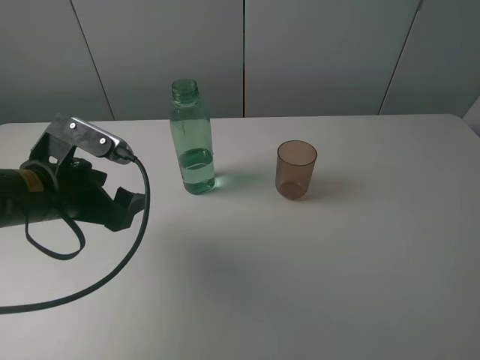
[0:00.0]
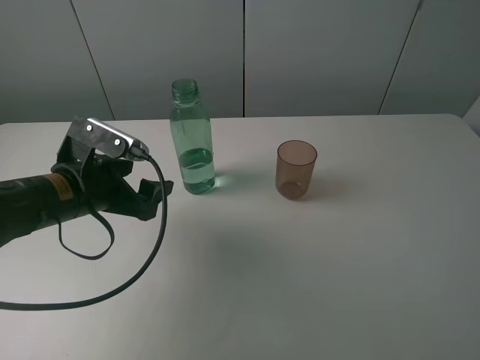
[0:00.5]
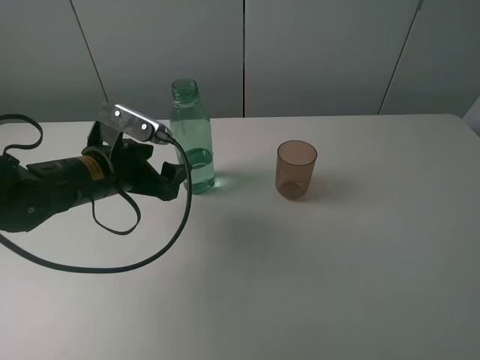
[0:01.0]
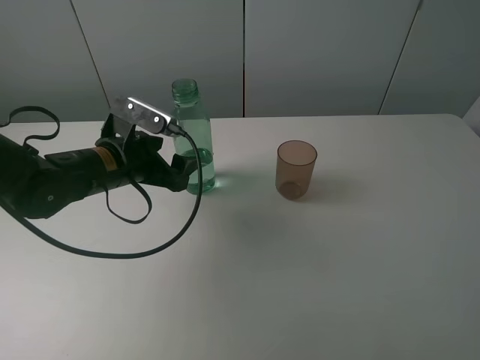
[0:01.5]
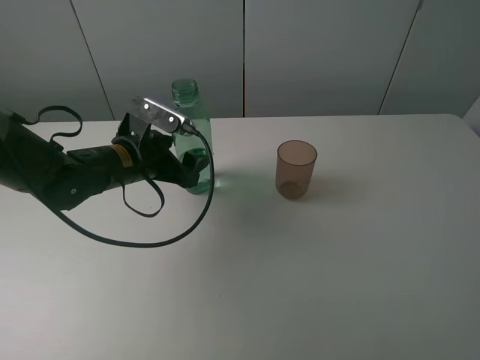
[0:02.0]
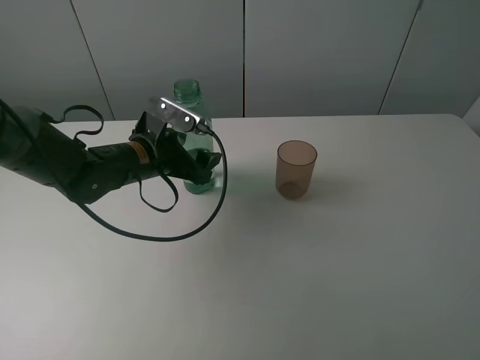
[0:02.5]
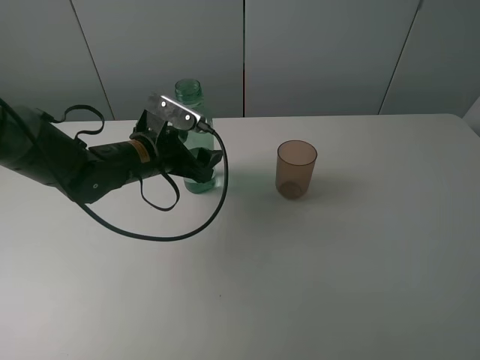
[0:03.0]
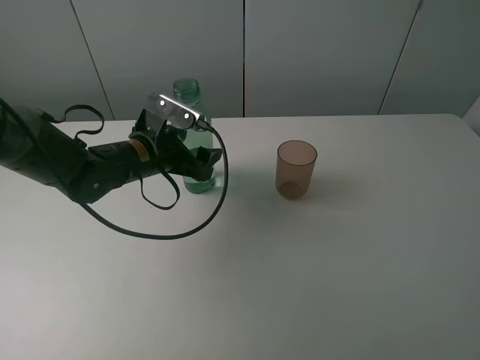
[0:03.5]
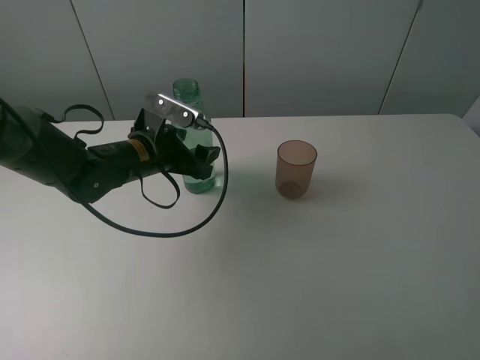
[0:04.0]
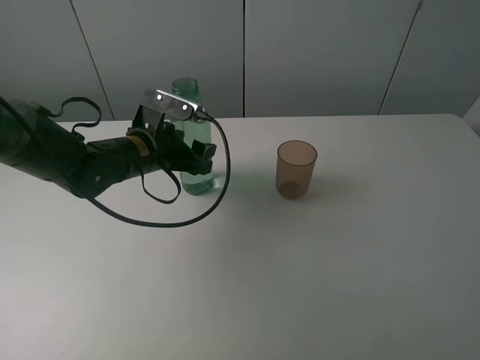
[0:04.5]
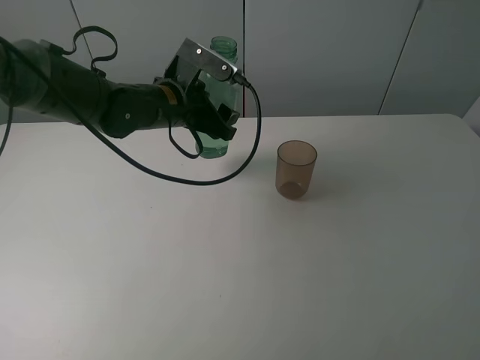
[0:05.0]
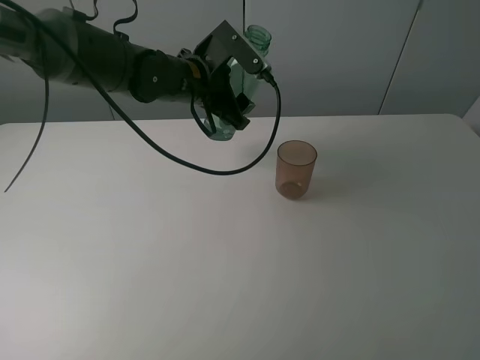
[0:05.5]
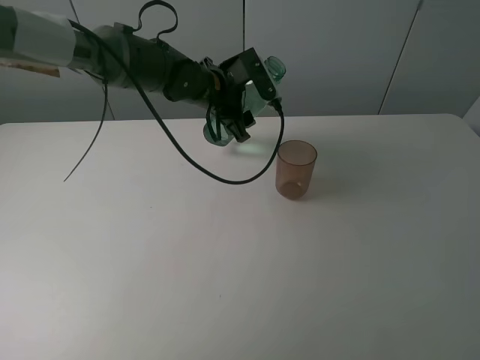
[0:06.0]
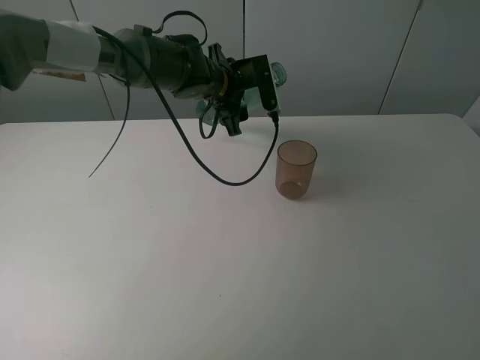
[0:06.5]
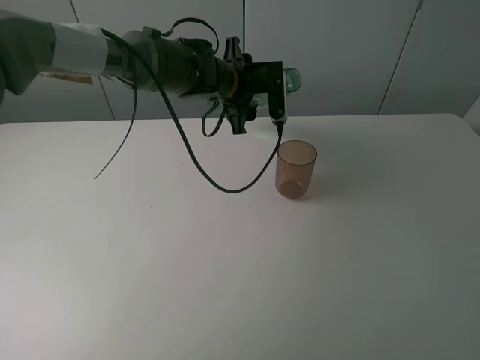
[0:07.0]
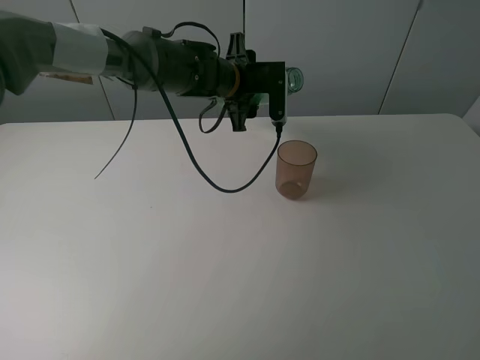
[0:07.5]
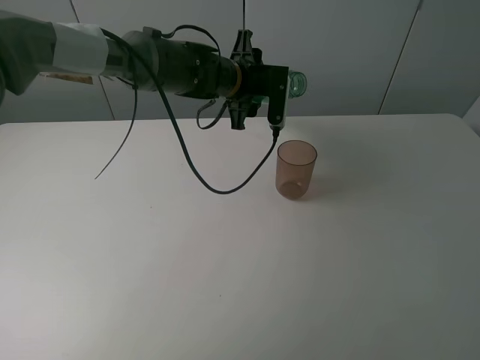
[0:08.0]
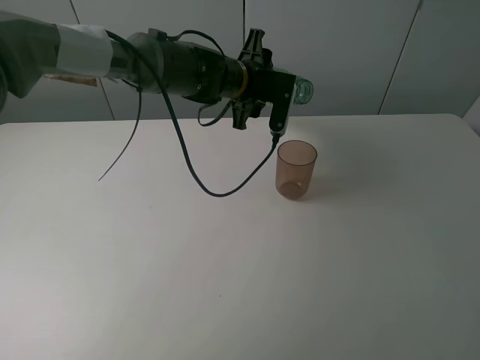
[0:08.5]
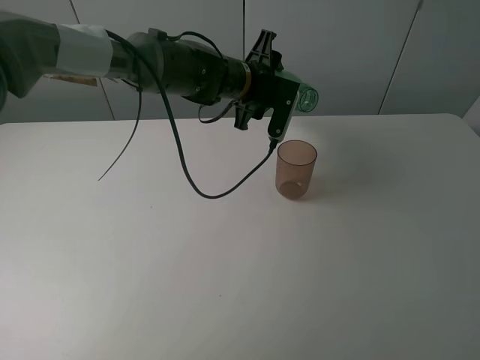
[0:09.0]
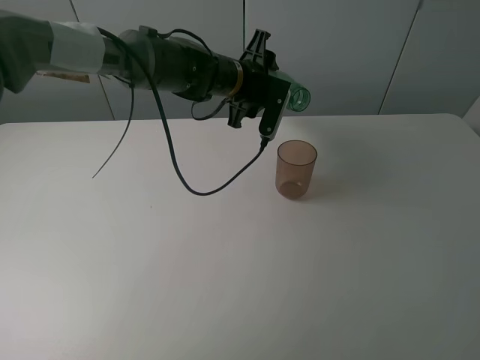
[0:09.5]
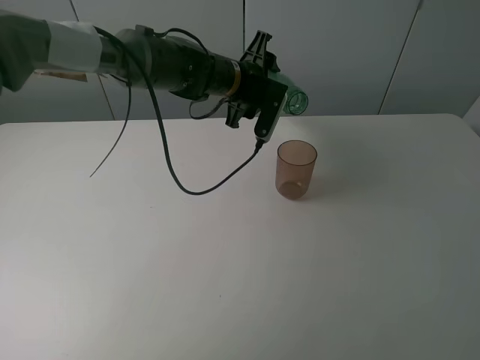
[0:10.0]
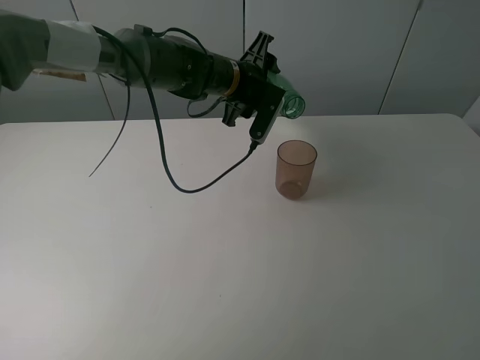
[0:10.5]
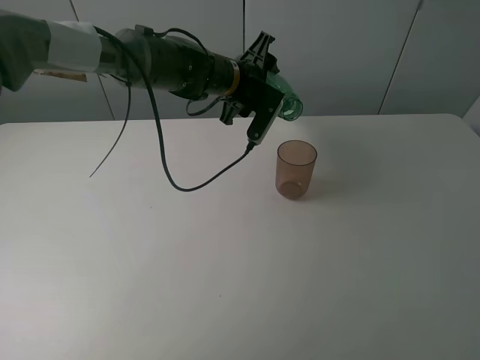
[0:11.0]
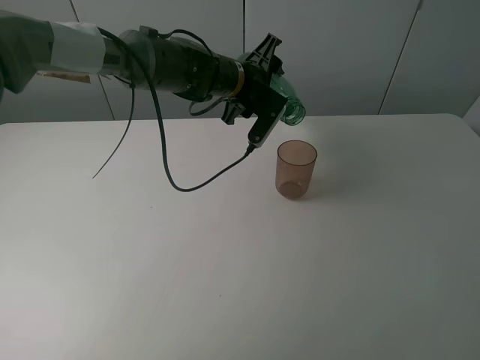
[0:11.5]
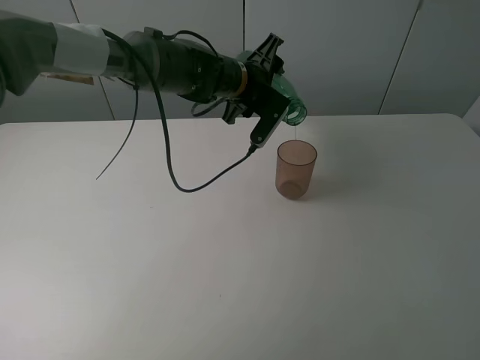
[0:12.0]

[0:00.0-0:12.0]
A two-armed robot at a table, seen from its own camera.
Task of the whole recording: pick up the bottle filled with water and pour it into the pink cup.
Step, 0:00.0 to 0:04.0: Grasp the green bottle with the left gripper.
0:00.0 to 0:02.0: The left gripper moves forward and to the right, about 10 cm.
0:02.0 to 0:04.0: The left gripper closes up.
0:04.0 to 0:06.0: The left gripper shifts some 15 cm forward, to the right and upward.
0:08.0 to 0:10.0: The grippers move only a little.
0:10.0 to 0:12.0: There are only small adjustments of the grippers.

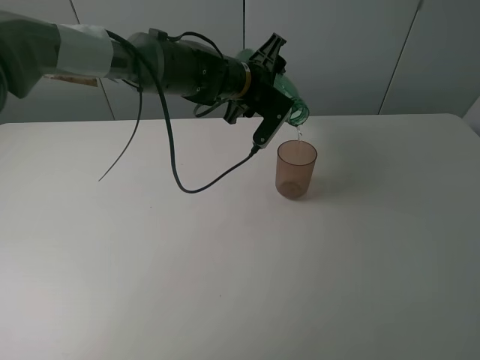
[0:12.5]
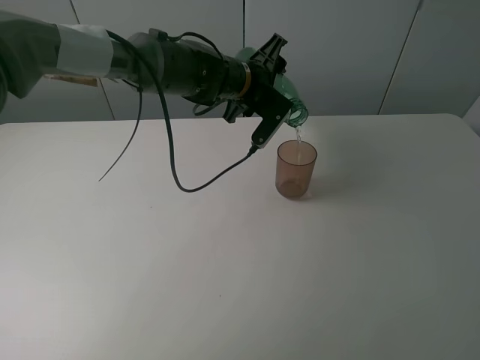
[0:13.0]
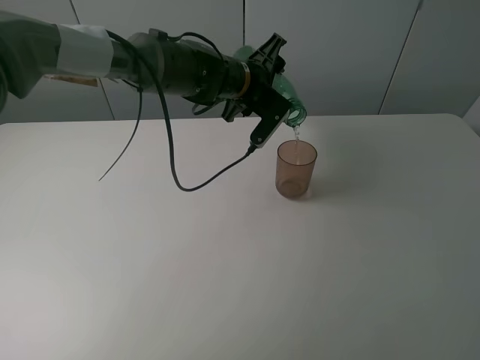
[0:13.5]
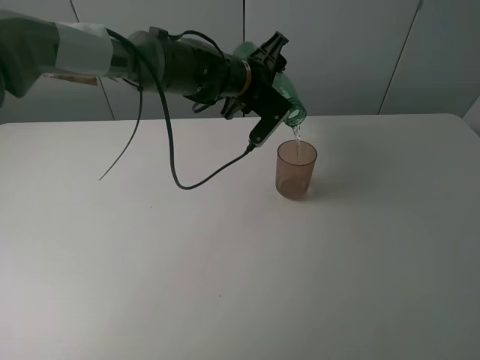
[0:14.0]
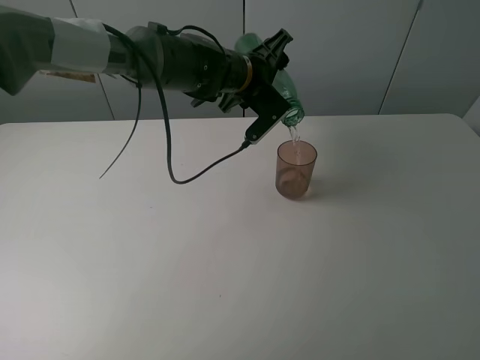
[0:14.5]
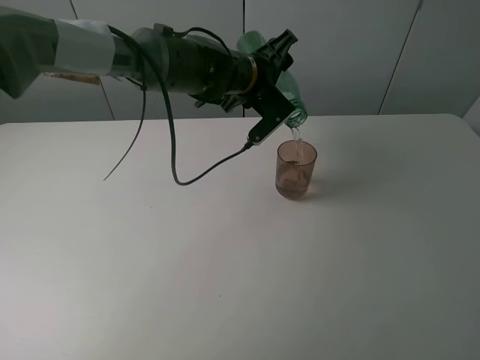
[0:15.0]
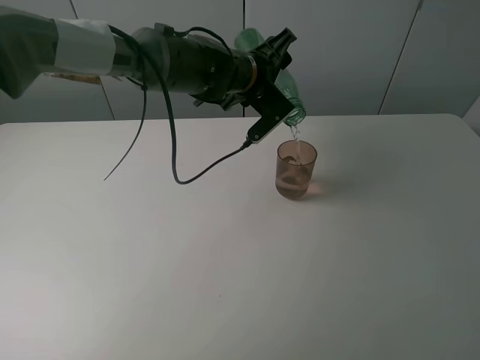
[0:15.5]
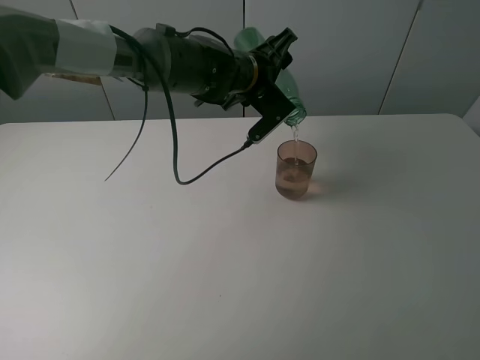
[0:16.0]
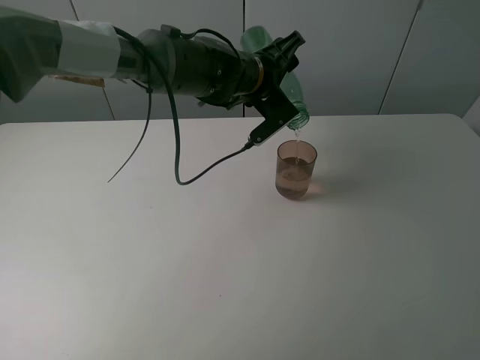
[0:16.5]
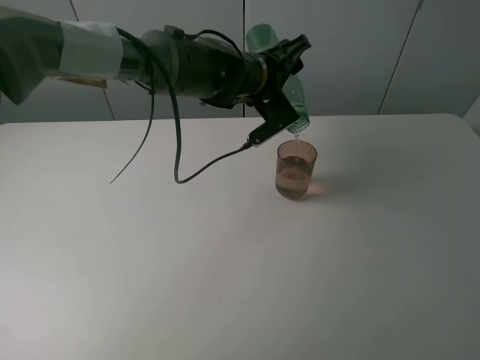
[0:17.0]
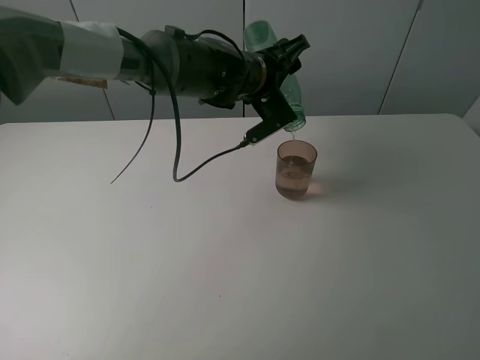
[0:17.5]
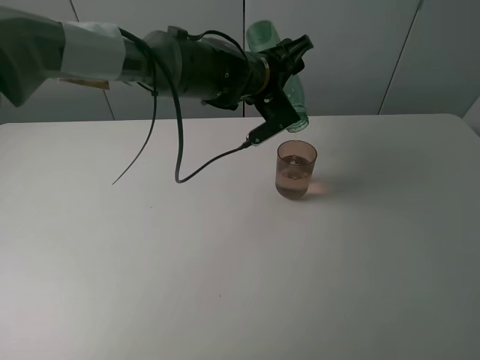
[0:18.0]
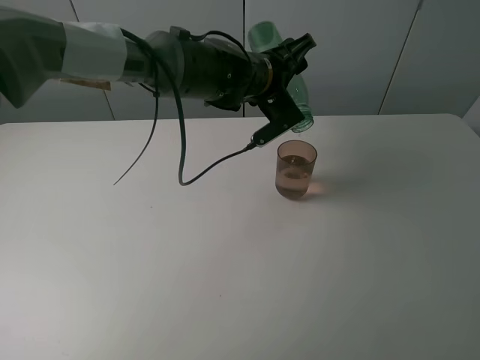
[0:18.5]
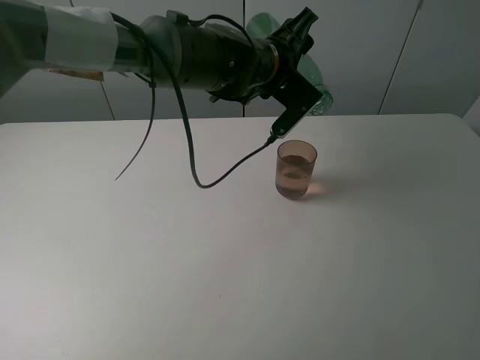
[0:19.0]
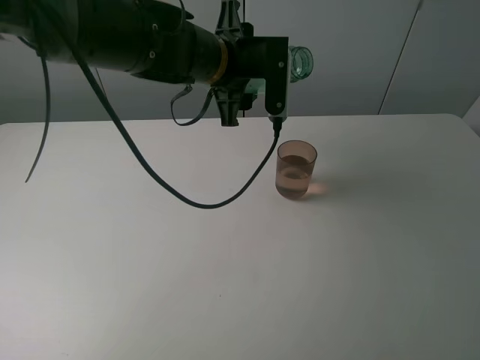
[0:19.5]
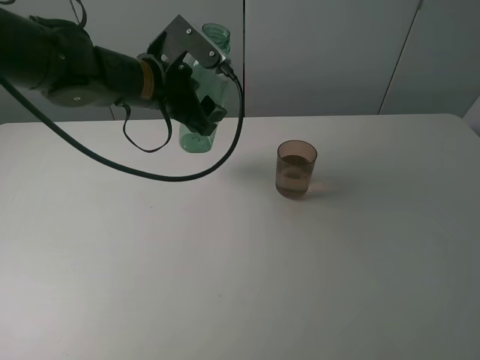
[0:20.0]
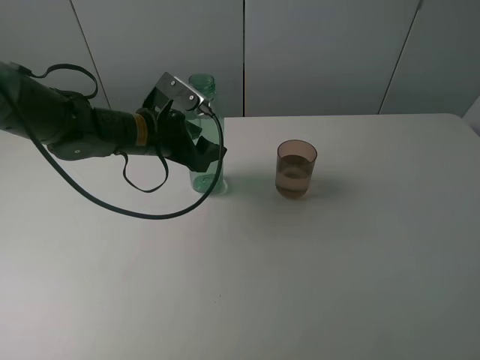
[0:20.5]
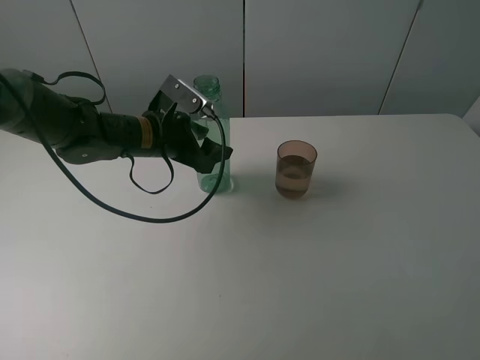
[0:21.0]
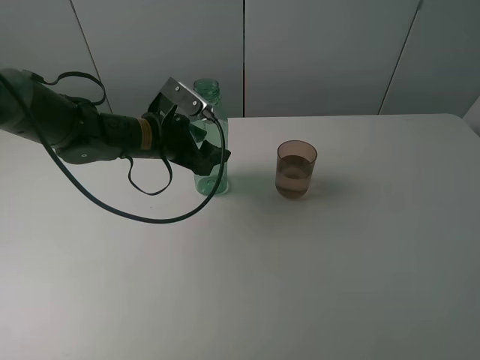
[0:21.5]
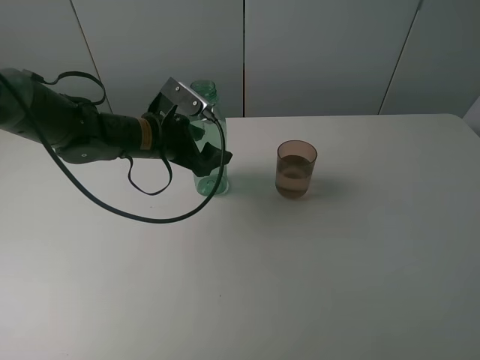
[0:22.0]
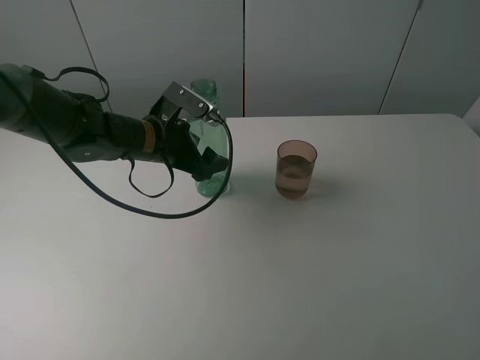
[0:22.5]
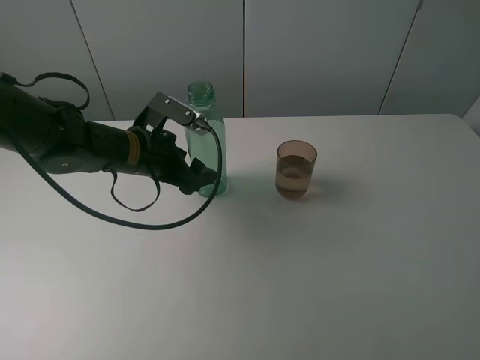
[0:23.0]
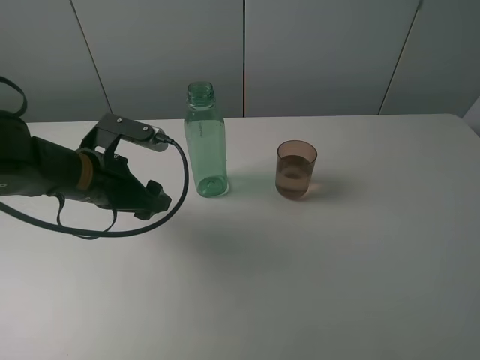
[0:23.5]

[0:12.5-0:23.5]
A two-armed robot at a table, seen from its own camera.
Task of the whole recording: pick up the bottle filled with water and pour it into the pink cup.
Step, 0:12.5 to 0:19.0: Pour water from green bottle to pink cup with the left gripper.
Step, 0:19.5 to 0:23.0: Place the green bottle with the left gripper.
0:12.5 to 0:14.5: There are only small adjustments of the grippers.
0:14.5 to 0:16.0: Both grippers stay about where they are.
0:16.0 to 0:18.0: The grippers stay close to where they were, moving slightly.
0:18.0 to 0:20.0: The left gripper moves to the left, some 15 cm.
0:20.0 to 0:21.5: The left gripper travels downward by about 10 cm.
0:21.5 to 0:23.5: The left gripper heads backward and to the left, covering some 10 cm, and opens.

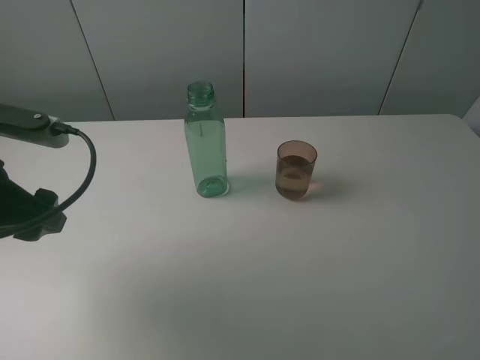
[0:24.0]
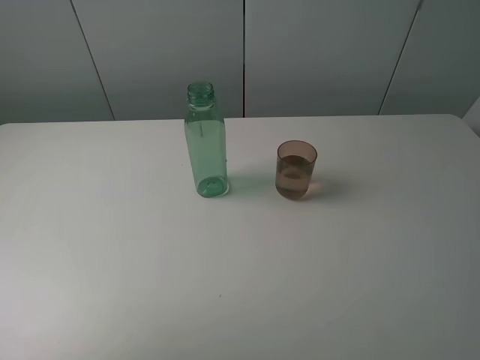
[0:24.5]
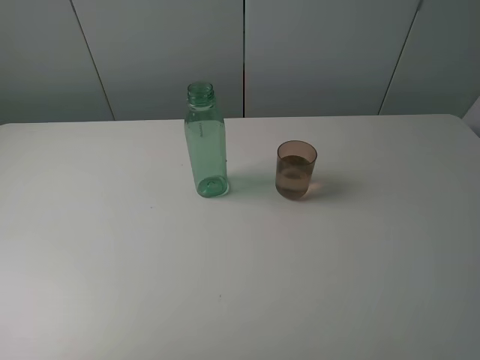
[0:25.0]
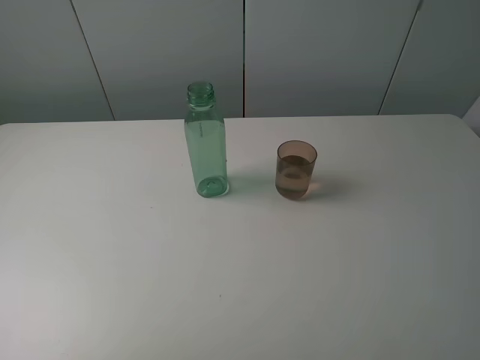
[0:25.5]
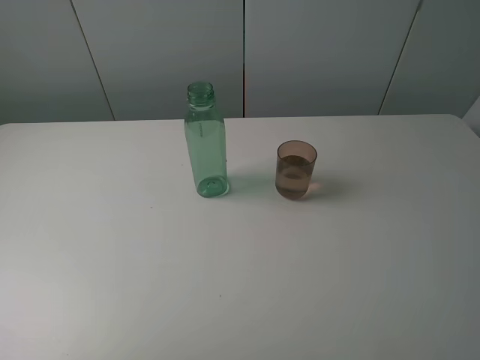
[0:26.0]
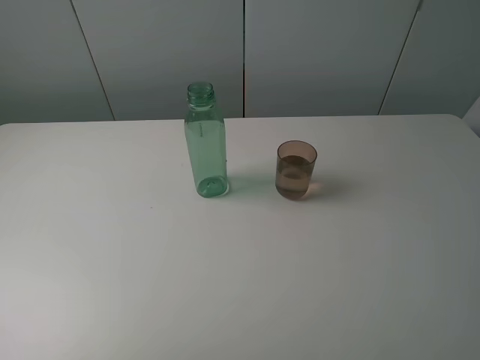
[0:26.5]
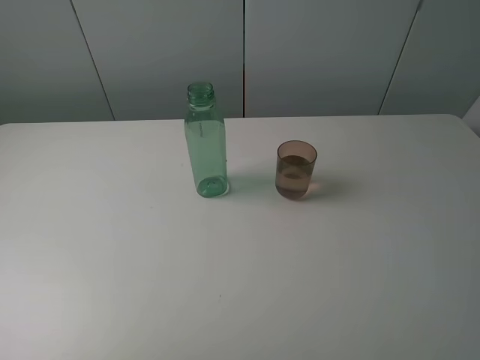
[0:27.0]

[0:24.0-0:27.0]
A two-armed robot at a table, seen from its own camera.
Task of the whole recording: pick up the bottle filled with water and pour it into the pink cup.
0:24.0 to 0:25.5: The left gripper heads backward and to the left, covering roughly 20 cm.
0:25.5 to 0:27.0: Both grippers stay put.
